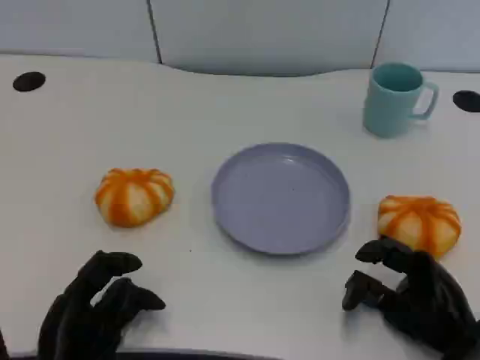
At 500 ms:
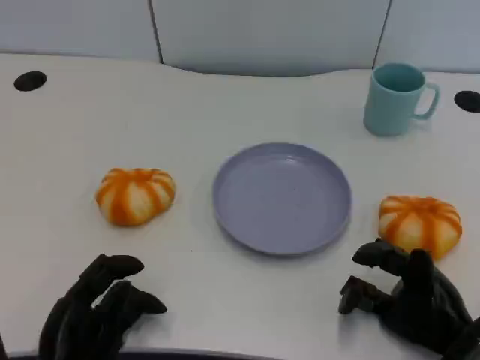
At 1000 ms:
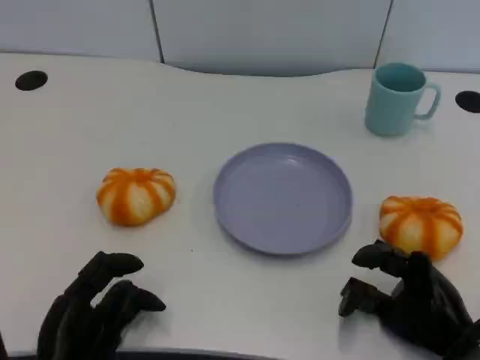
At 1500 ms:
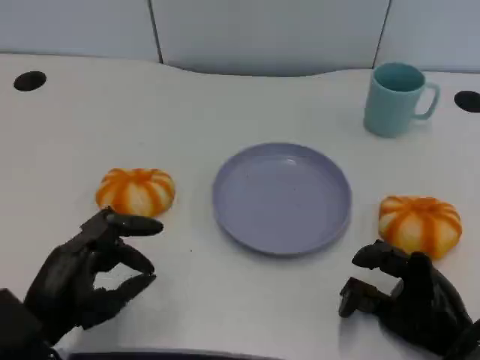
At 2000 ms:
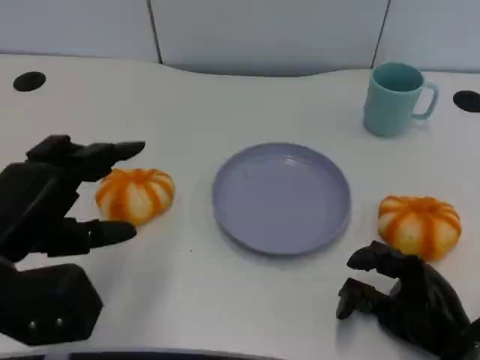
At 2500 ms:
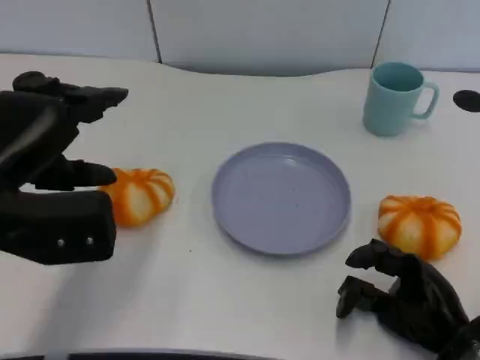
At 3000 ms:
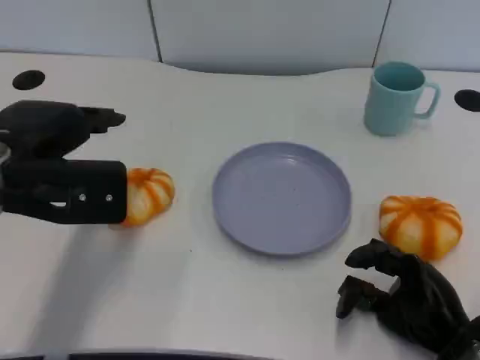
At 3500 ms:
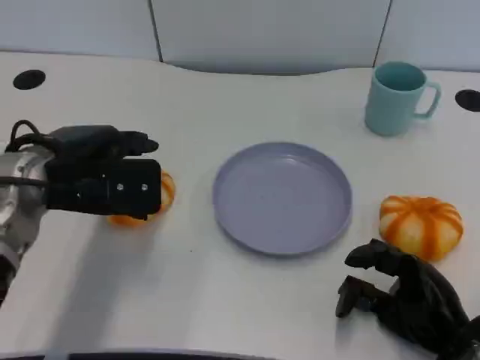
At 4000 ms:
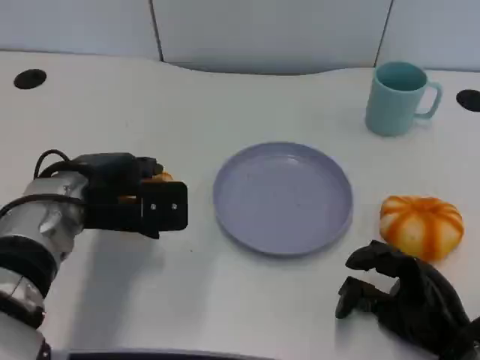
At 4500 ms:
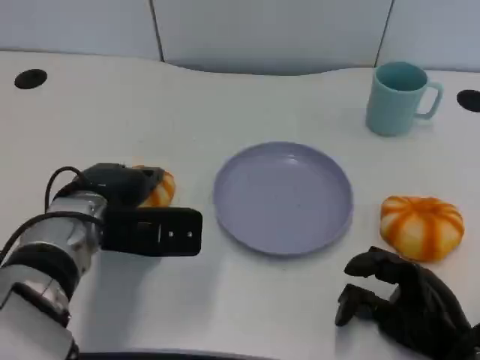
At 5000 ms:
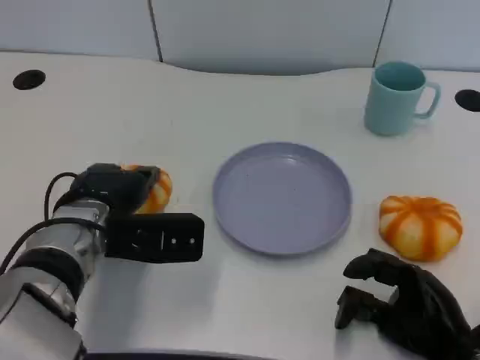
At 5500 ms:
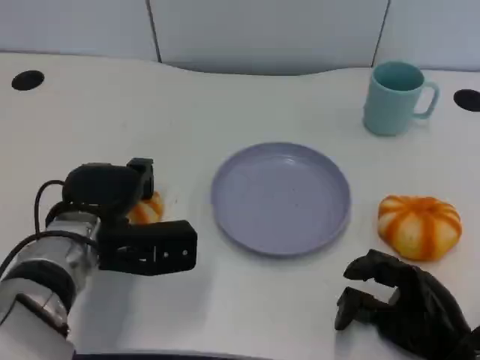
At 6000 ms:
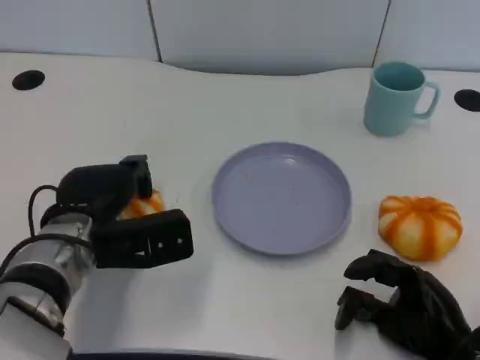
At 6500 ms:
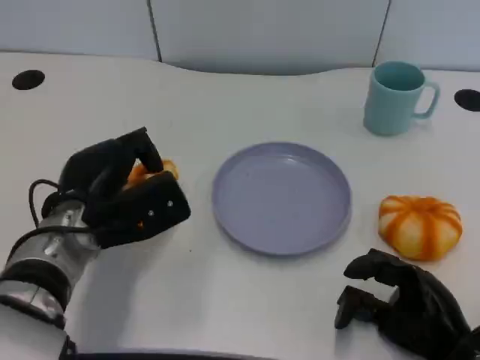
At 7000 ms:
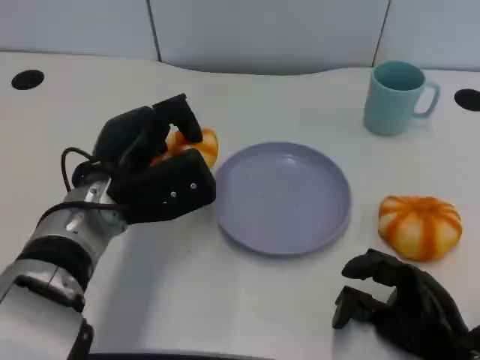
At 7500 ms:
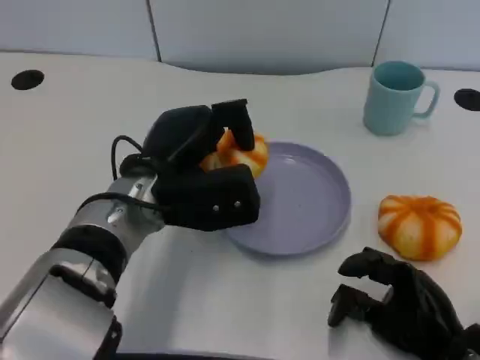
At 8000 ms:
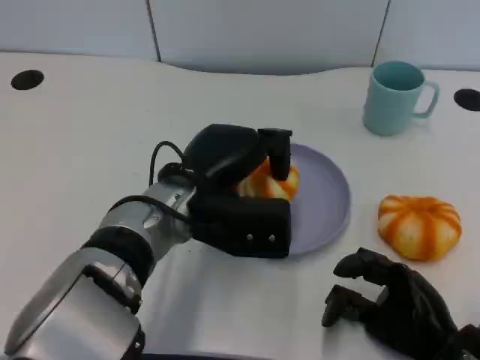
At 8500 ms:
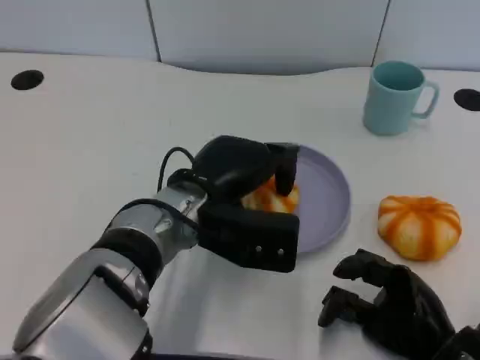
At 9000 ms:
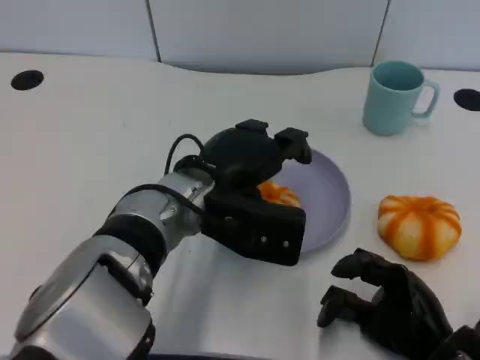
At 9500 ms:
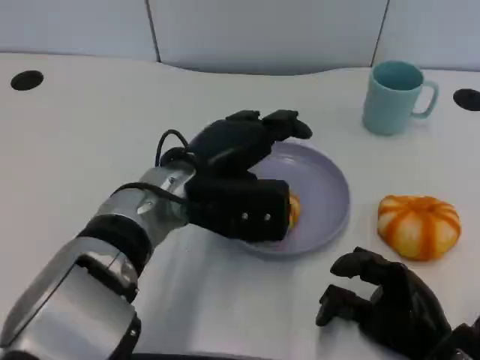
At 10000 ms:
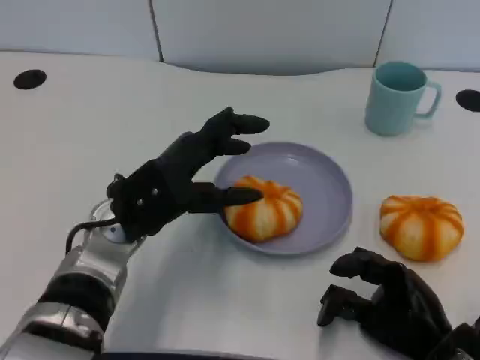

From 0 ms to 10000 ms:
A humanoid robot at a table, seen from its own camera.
Task of the whole recording: Grasp the bread from the table and place it into the plate.
From 0 ms to 2000 ms: The left hand moves upward, about 15 cm.
From 2000 ms to 4000 ms: The left hand heads forward and to the right, covering approximately 15 cm.
From 6000 ms to 8000 ms: The left hand heads to the right, covering some 10 cm.
From 8000 ms to 10000 ms: The left hand heads to the left, covering about 5 cm.

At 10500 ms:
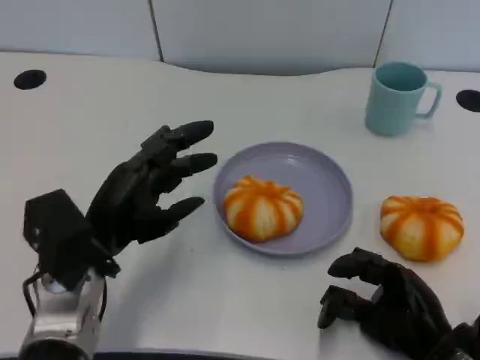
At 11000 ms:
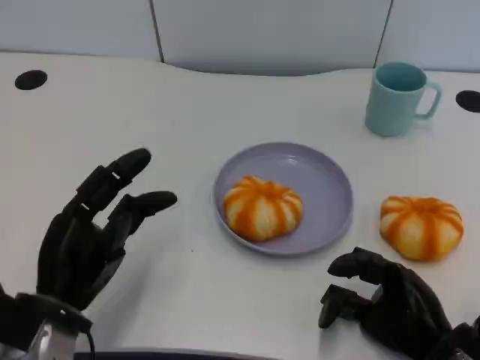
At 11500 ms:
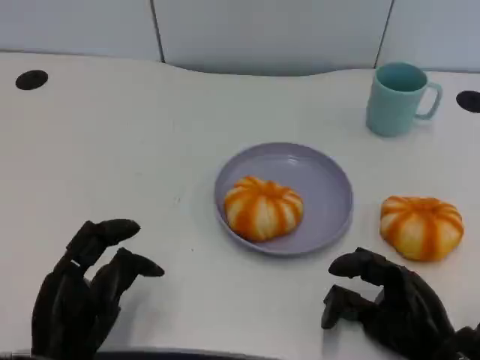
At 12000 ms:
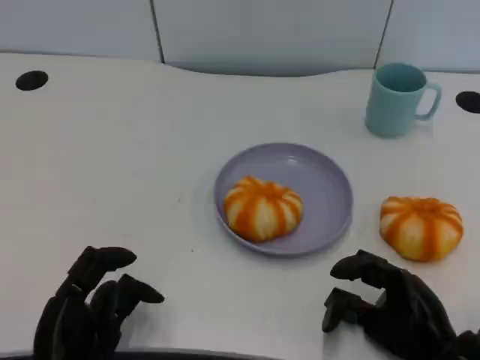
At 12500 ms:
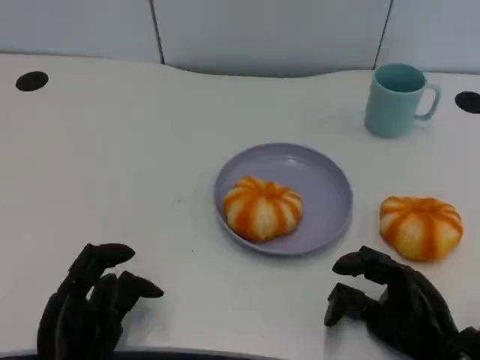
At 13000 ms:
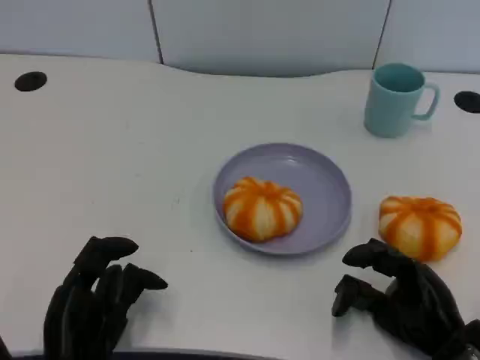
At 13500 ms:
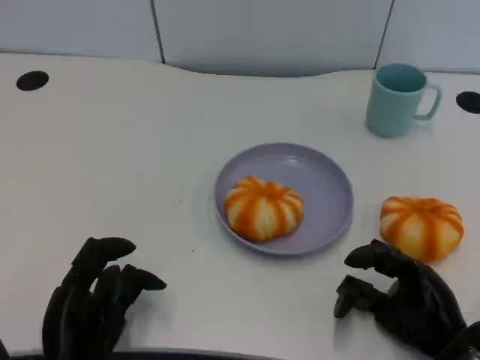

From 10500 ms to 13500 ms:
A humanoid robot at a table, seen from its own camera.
Task of the whole recording: Grasp the bread from the table and place it into the plate.
From 10500 ms to 12000 ms: The left hand travels backward and downward by about 15 cm.
From 12000 ms to 13500 ms: The hands make only small movements.
